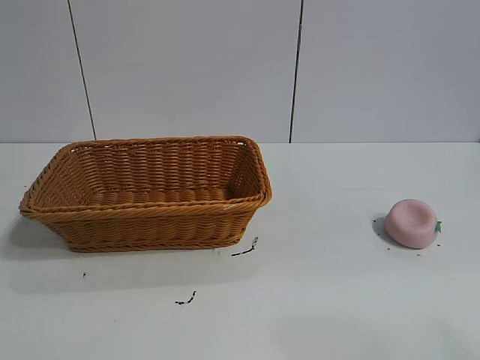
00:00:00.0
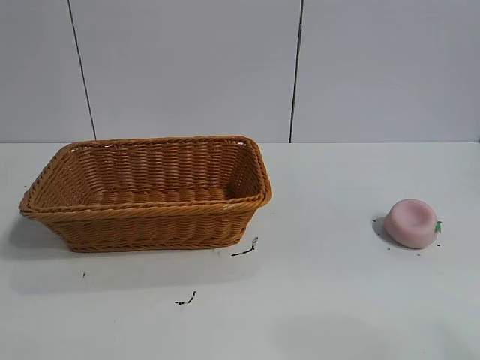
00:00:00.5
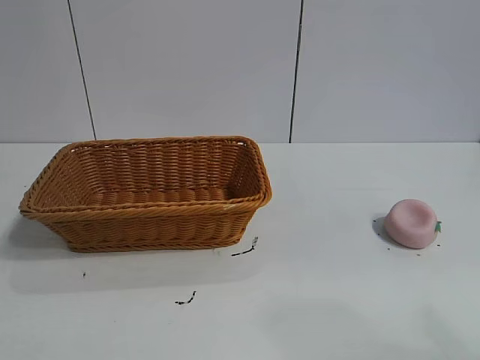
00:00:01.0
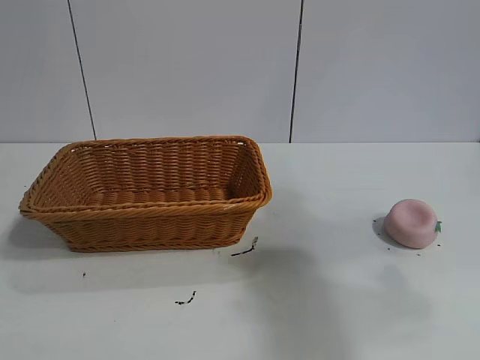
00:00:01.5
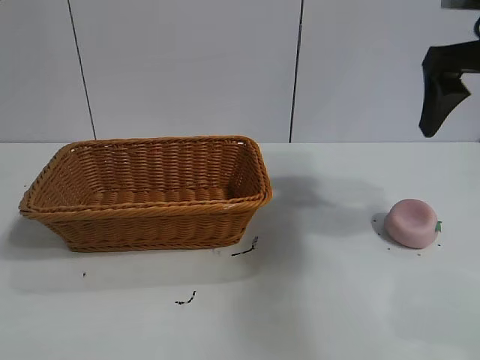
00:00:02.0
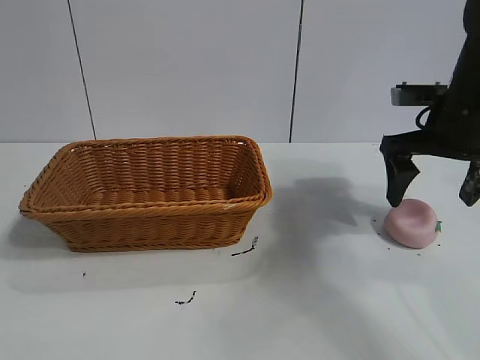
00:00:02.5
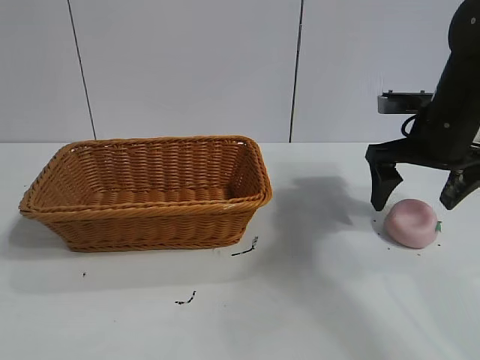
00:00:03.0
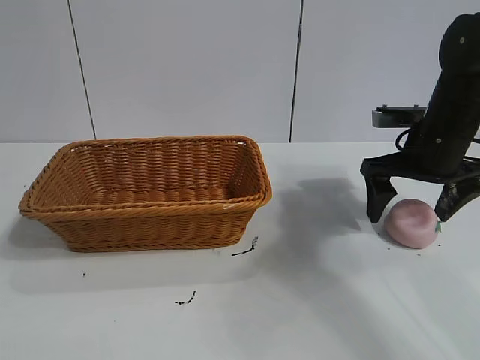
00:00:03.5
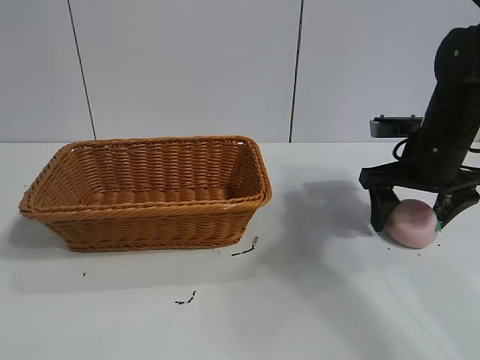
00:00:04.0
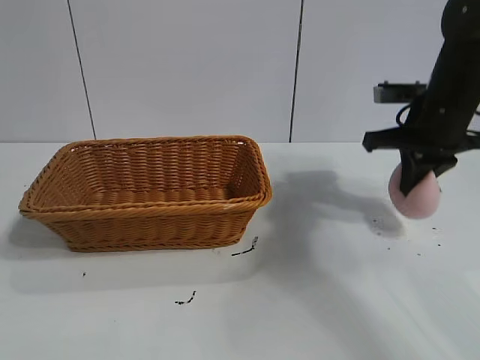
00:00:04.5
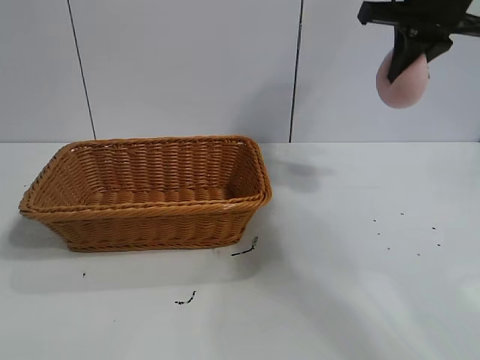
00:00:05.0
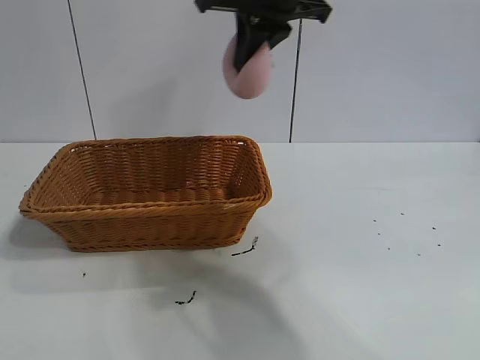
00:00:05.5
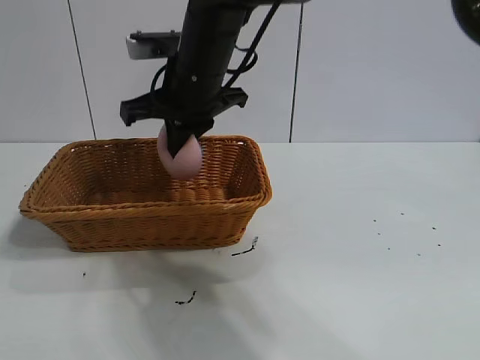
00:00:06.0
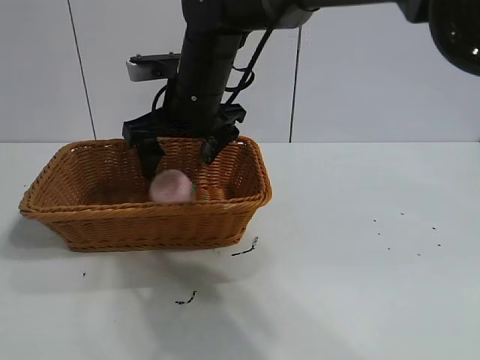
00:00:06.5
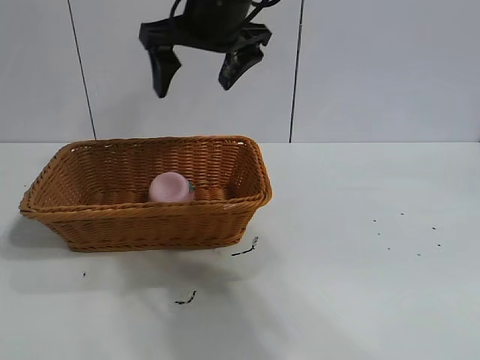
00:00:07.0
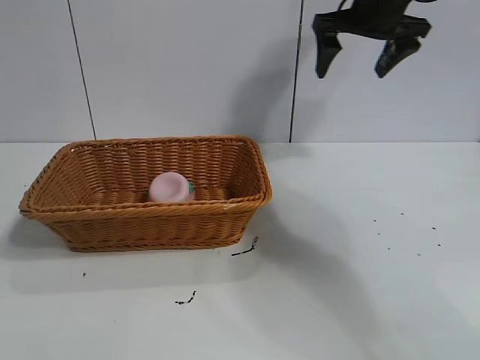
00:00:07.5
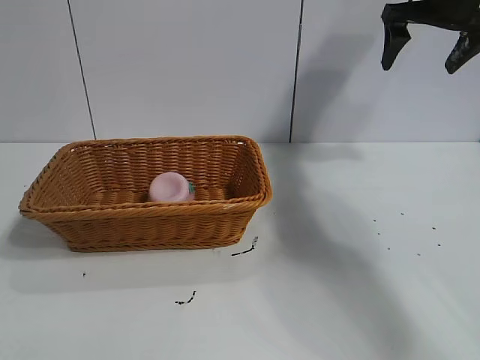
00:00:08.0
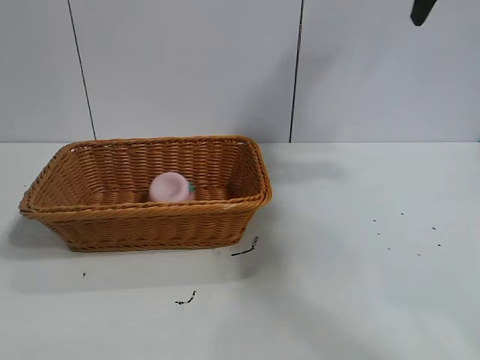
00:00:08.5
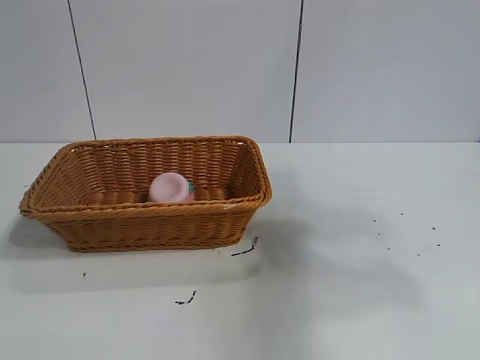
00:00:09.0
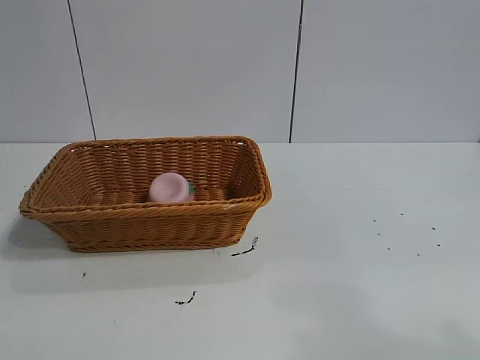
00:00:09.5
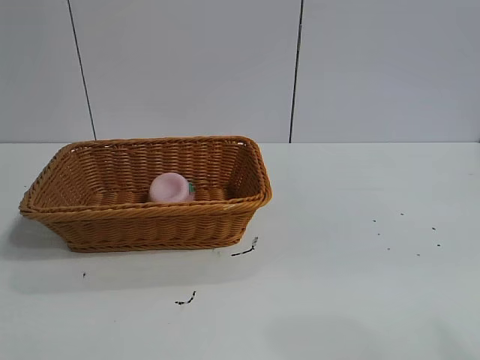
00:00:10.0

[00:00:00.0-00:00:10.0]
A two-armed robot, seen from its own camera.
Task of the whole recording: pick up the peach and put it into the basket.
Step, 00:00:01.0 to 00:00:04.0: Grasp the peach with right gripper.
Step, 00:00:04.5 to 00:00:06.0: Place the peach in the basket with right gripper.
